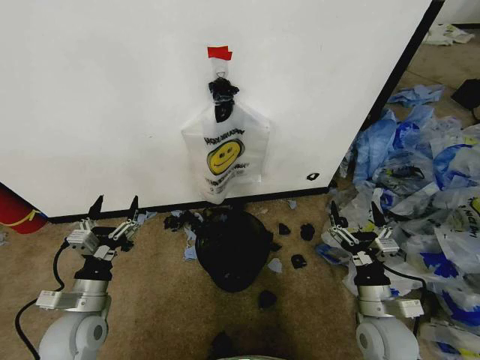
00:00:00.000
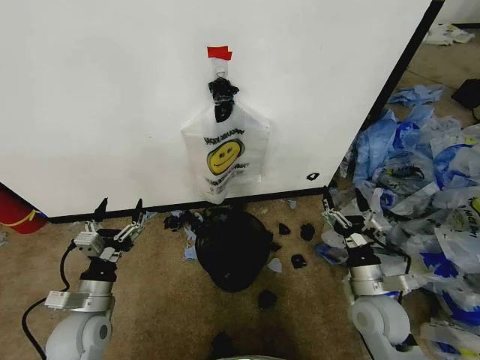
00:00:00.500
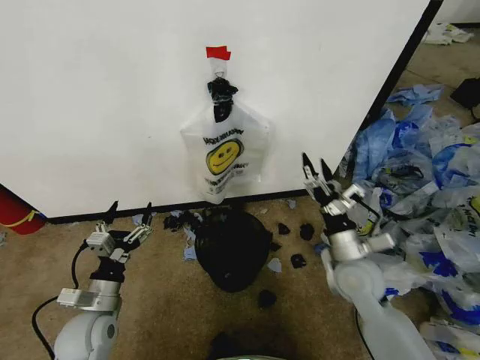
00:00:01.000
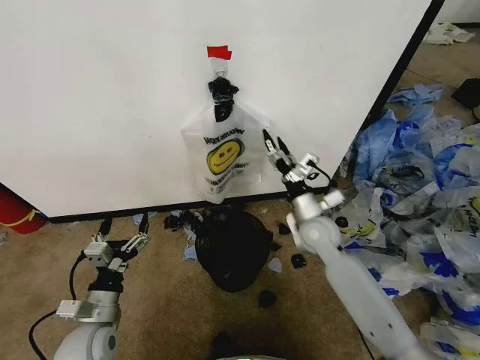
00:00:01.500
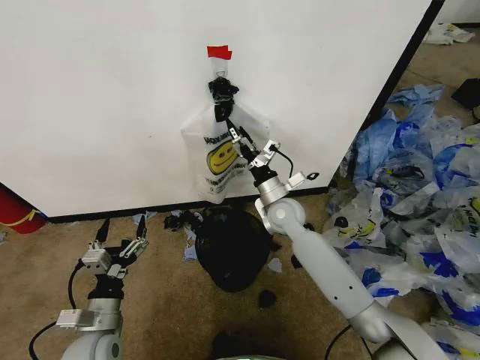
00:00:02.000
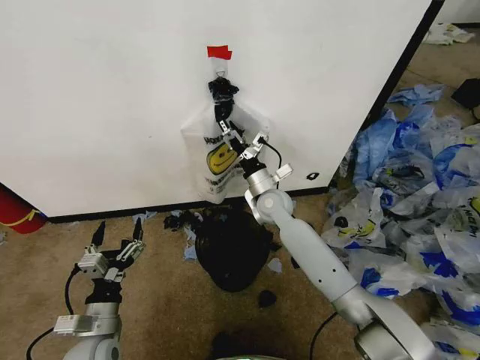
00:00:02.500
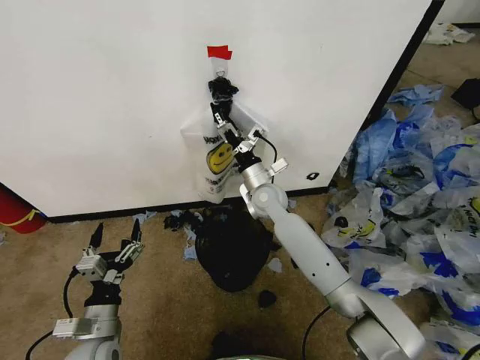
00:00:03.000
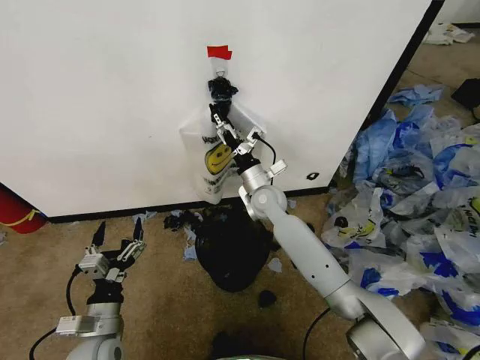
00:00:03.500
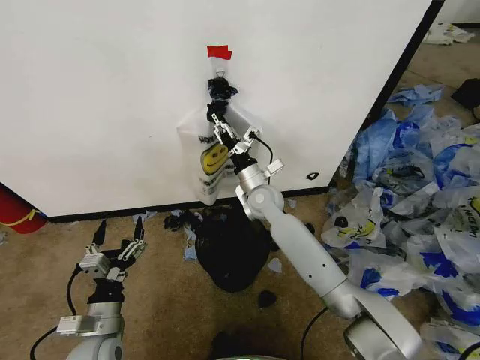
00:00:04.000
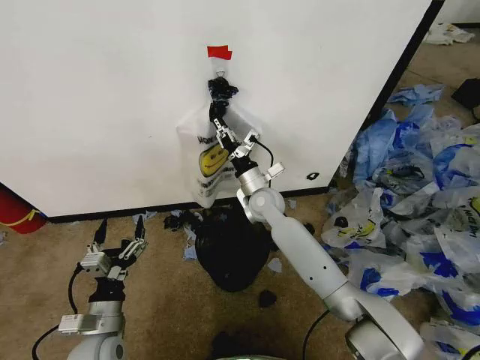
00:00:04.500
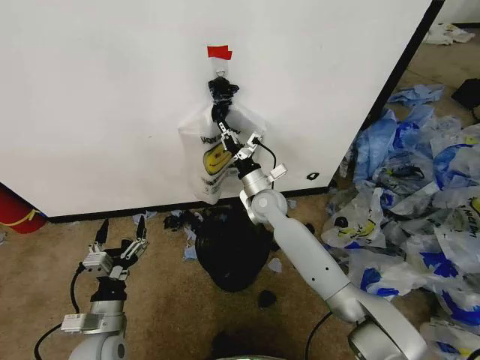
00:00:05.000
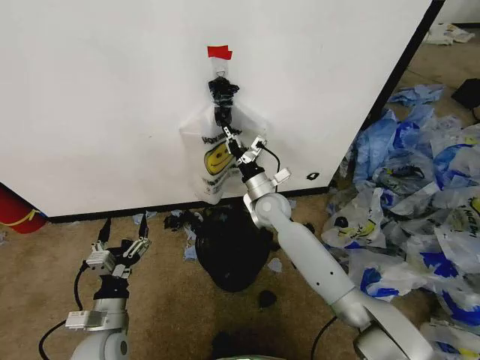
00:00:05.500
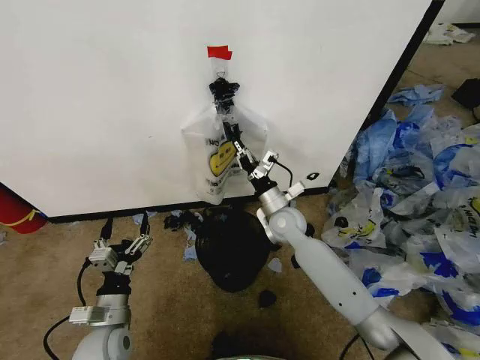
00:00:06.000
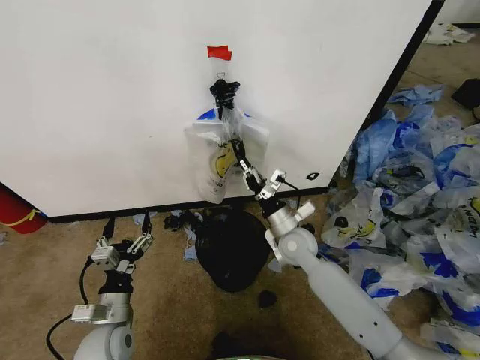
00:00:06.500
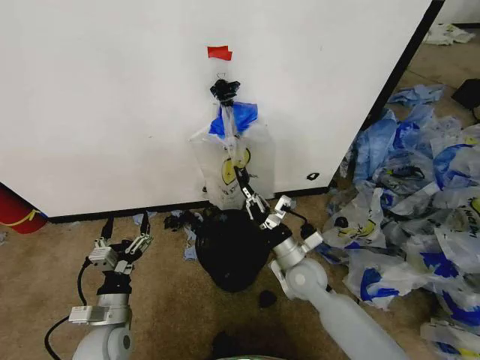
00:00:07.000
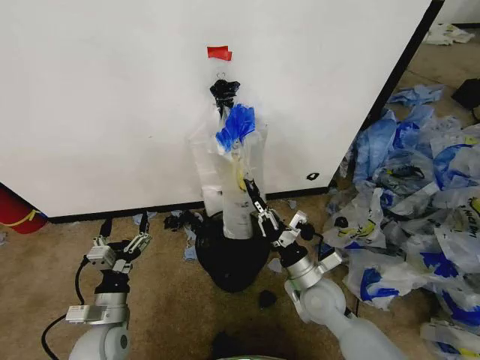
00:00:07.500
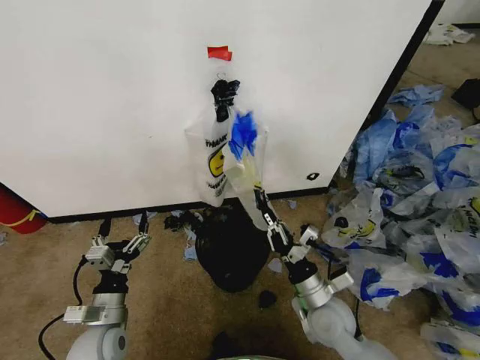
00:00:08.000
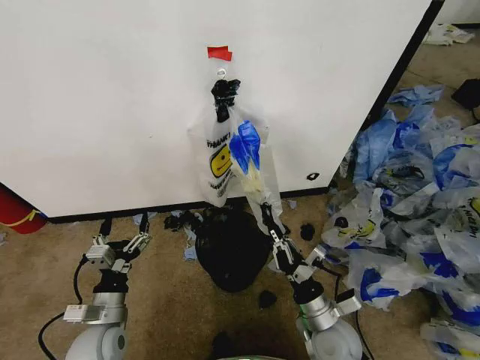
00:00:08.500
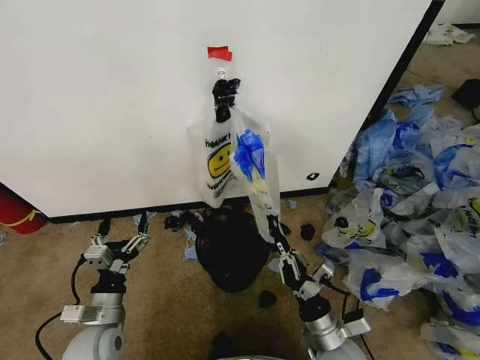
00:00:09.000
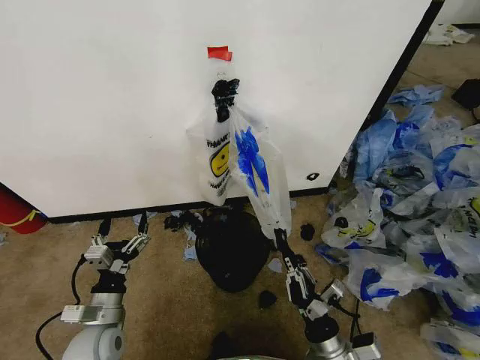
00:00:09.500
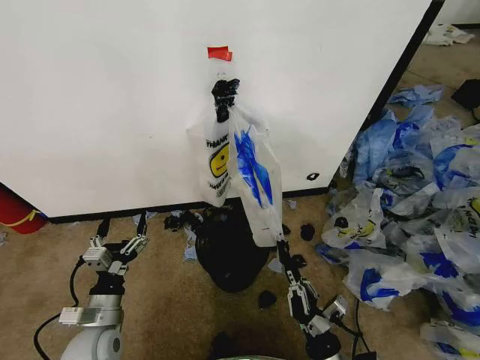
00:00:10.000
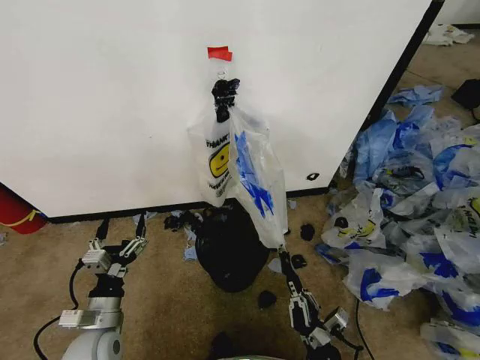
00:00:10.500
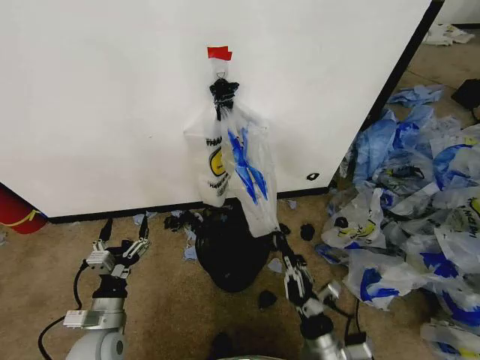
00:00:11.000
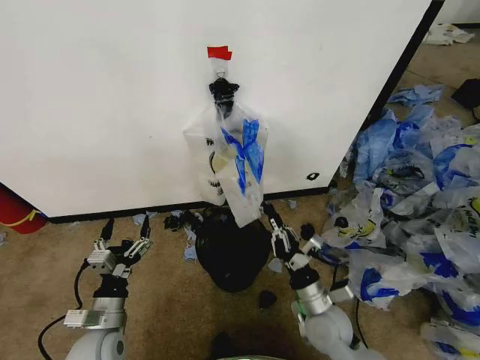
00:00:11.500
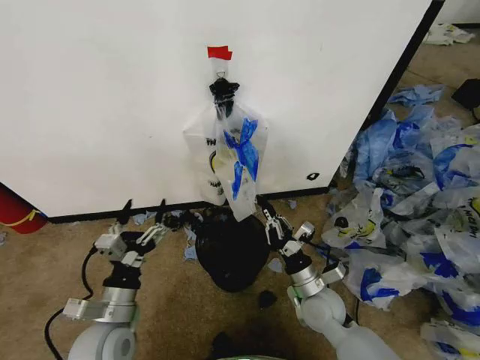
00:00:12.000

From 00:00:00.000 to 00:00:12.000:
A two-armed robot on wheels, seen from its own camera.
Task of the whole recording: Pick up the garbage bag from the wall and place it over the trash bin.
From 00:00:02.000 to 00:00:04.000: The right gripper shifts by about 5 cm, and closes.
From 00:00:04.000 to 00:00:06.000: The right gripper is displaced to the right by about 5 cm, and closes up.
From 00:00:06.000 to 00:00:08.000: The right gripper heads backward, covering some 20 cm.
From 00:00:08.000 to 00:00:10.000: The right gripper moves backward, approximately 15 cm.
From 00:00:10.000 to 00:00:12.000: The right gripper shifts about 15 cm forward. Meanwhile the left gripper travels upward and to the right by some 10 cm.

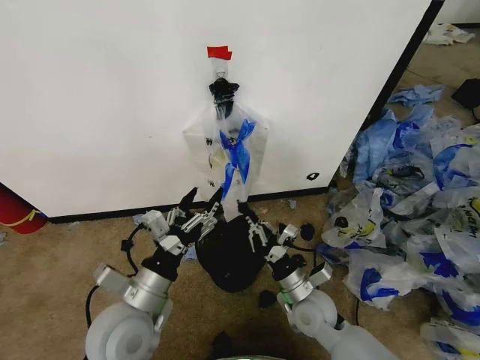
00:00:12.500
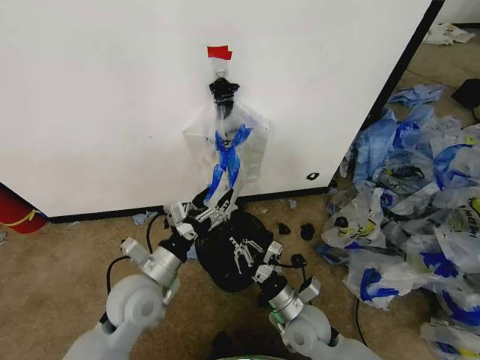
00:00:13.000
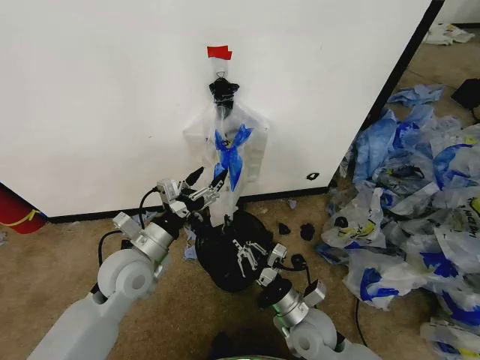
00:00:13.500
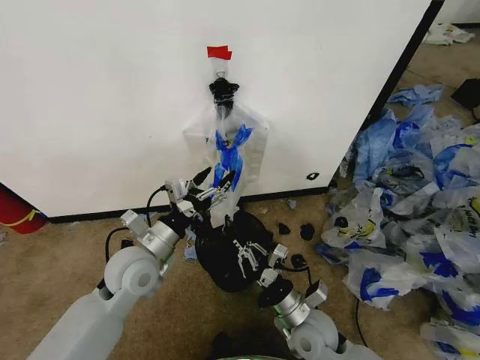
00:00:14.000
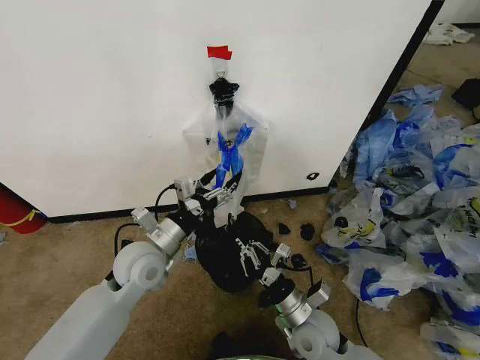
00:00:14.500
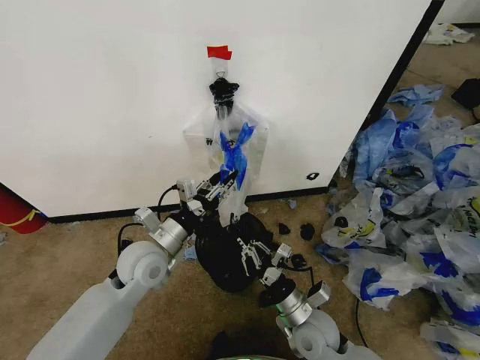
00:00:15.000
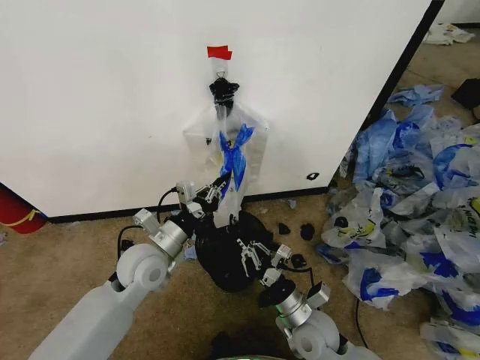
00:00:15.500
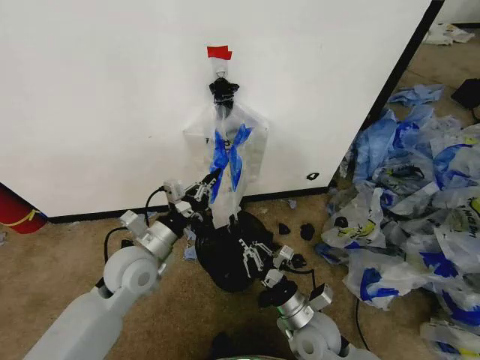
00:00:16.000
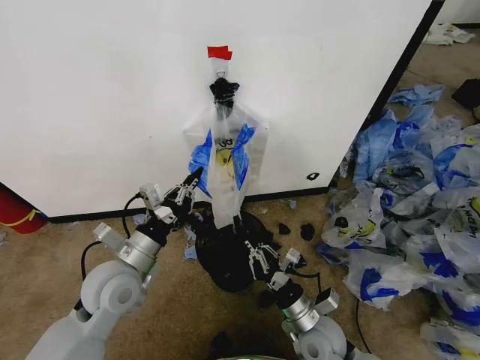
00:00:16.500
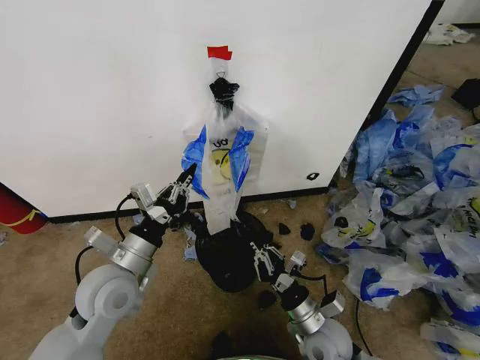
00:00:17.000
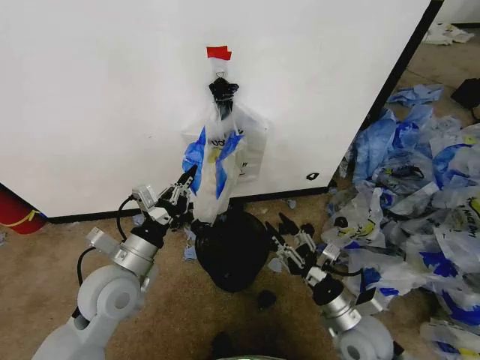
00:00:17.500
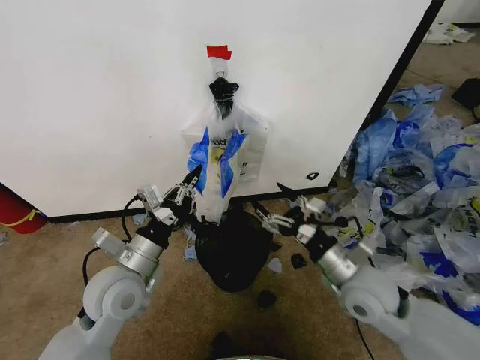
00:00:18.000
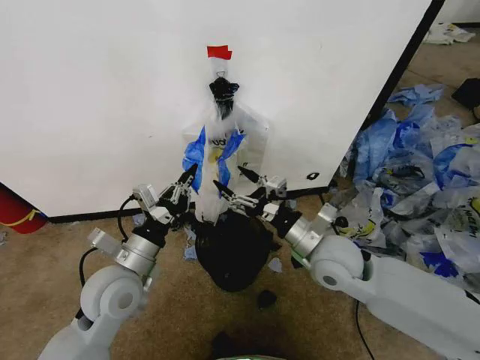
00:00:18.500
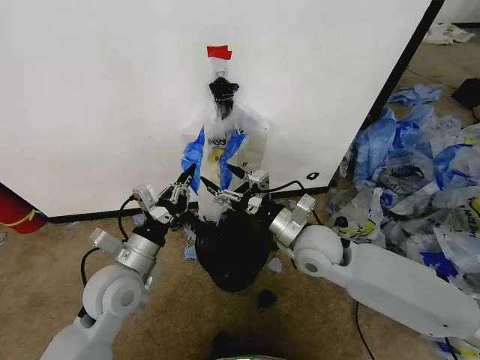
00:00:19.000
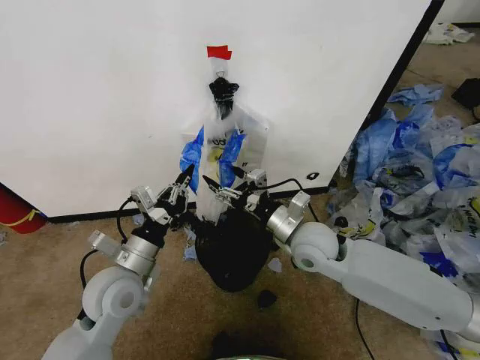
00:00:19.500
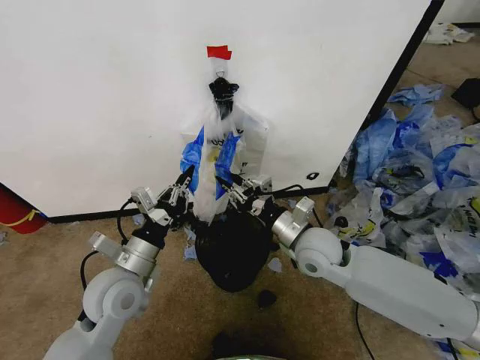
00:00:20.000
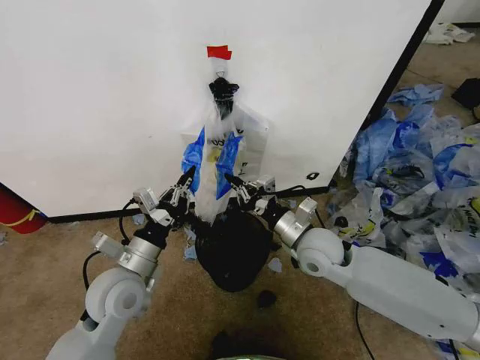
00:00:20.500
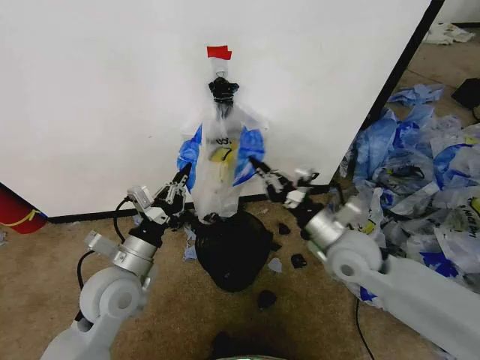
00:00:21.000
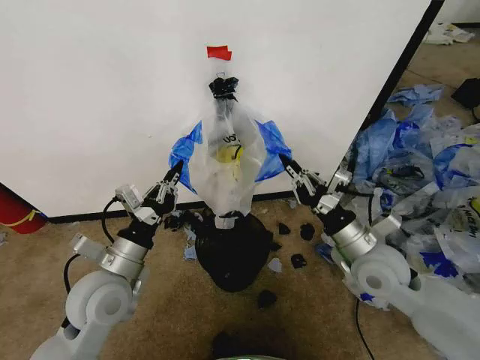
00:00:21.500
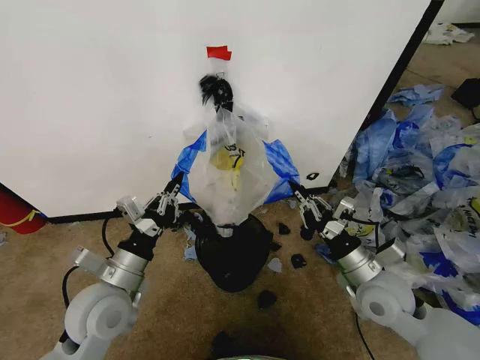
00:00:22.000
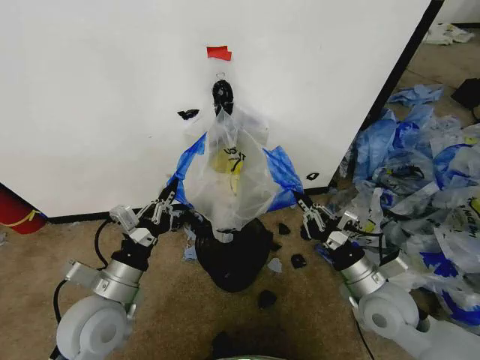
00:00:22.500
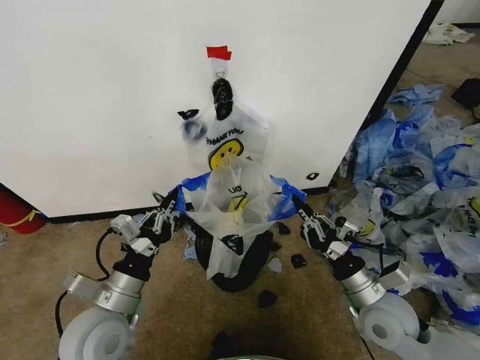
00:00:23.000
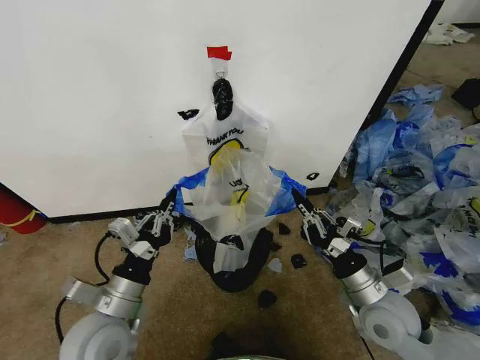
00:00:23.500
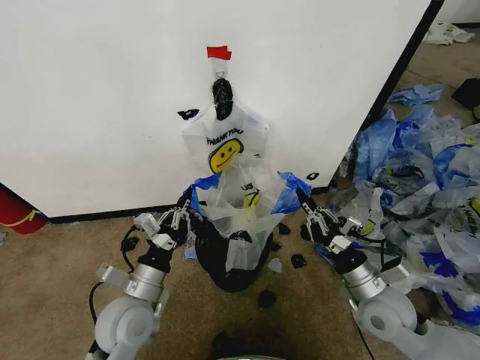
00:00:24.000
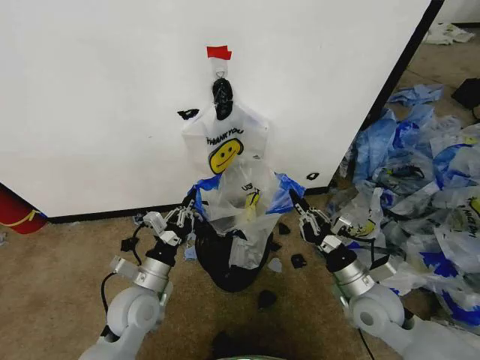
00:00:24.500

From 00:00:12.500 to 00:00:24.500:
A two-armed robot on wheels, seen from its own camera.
Task of the whole recording: Pick up the garbage bag from the wall and place it over the trash bin.
From 00:00:12.500 to 00:00:14.500: The left gripper travels forward by approximately 10 cm.
From 00:00:14.500 to 00:00:16.500: The left gripper ends up some 5 cm from where it was, and closes its fingers.
From 00:00:16.500 to 00:00:18.500: The right gripper moves upward and forward, roughly 20 cm, and opens up.
From 00:00:18.500 to 00:00:20.500: The right gripper closes its fingers.
From 00:00:20.500 to 00:00:22.500: The right gripper is displaced to the right and backward by some 15 cm, while the left gripper moves roughly 5 cm.
From 00:00:22.500 to 00:00:24.500: The left gripper shifts about 10 cm downward.

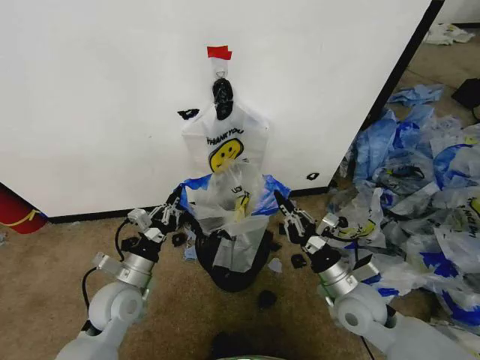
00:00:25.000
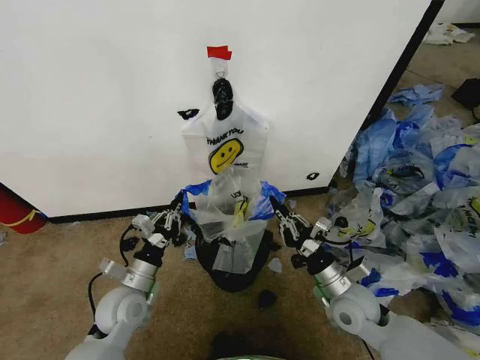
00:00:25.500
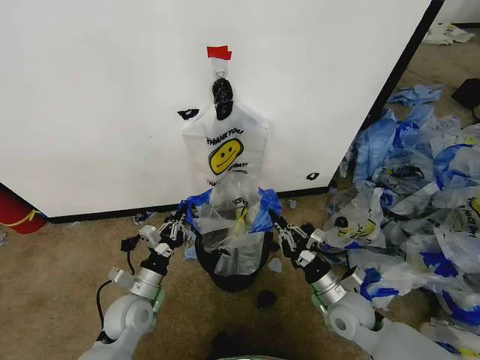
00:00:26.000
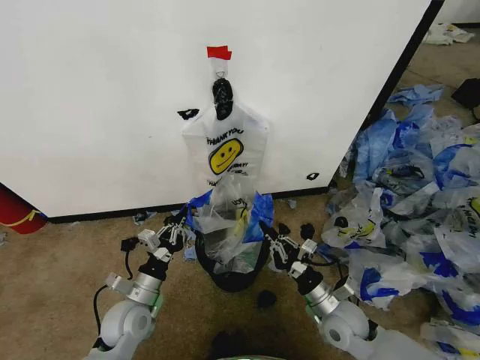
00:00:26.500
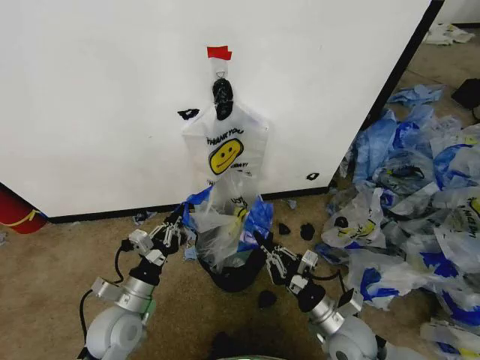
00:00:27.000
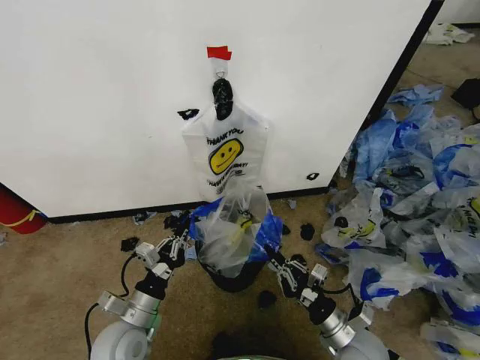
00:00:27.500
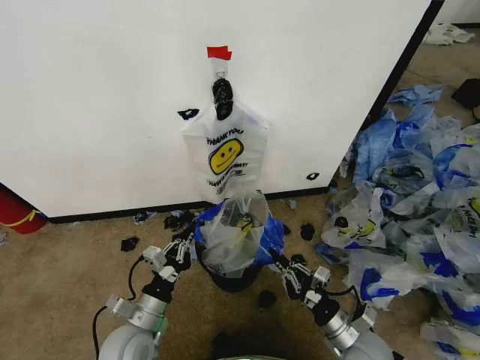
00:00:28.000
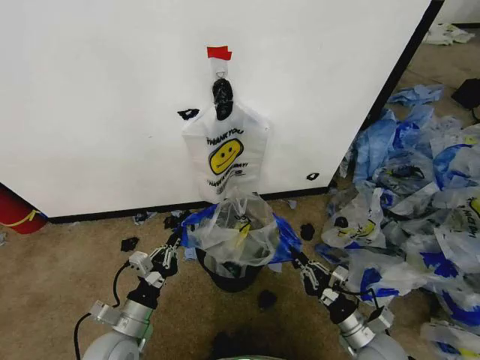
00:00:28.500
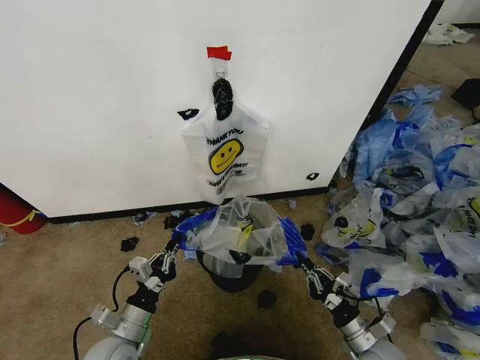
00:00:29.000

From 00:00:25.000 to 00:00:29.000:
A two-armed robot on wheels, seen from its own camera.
Task of the whole recording: Pick up the garbage bag from the wall and place it over the trash bin.
From 00:00:25.000 to 00:00:27.000: The right gripper goes approximately 5 cm downward and backward.
From 00:00:27.000 to 00:00:29.000: The right gripper travels to the right and downward by roughly 10 cm; the left gripper shifts by approximately 5 cm.
